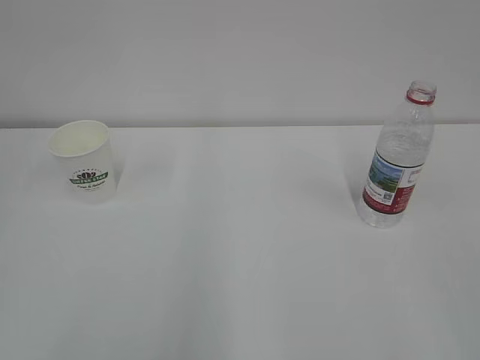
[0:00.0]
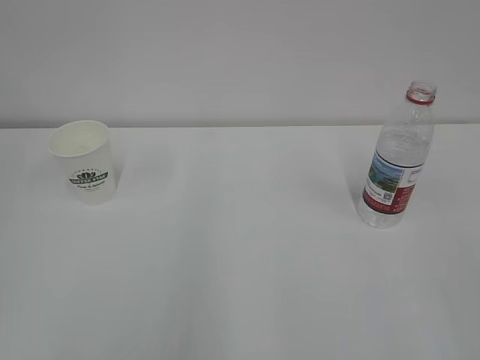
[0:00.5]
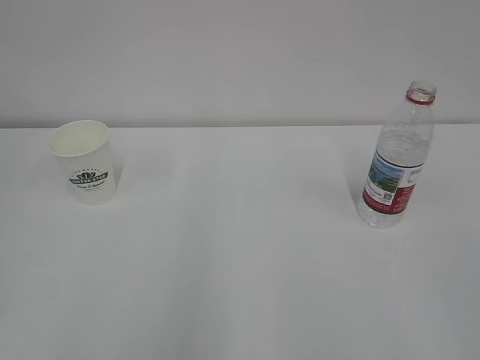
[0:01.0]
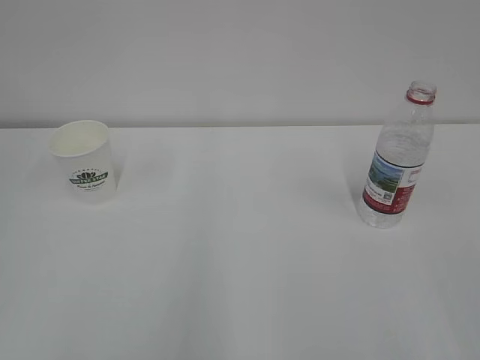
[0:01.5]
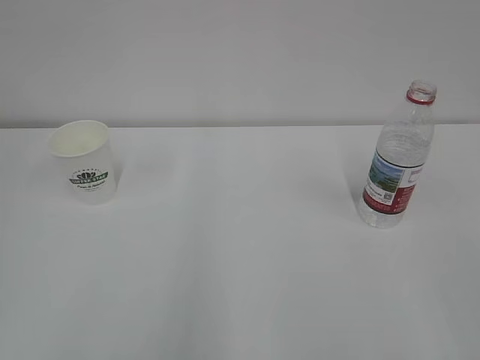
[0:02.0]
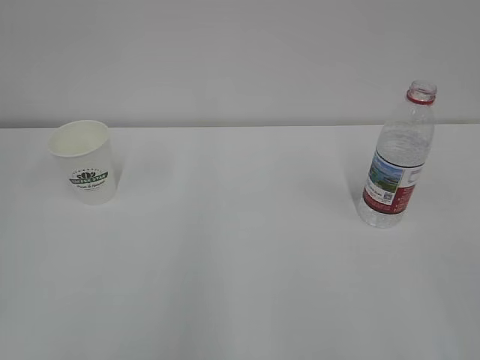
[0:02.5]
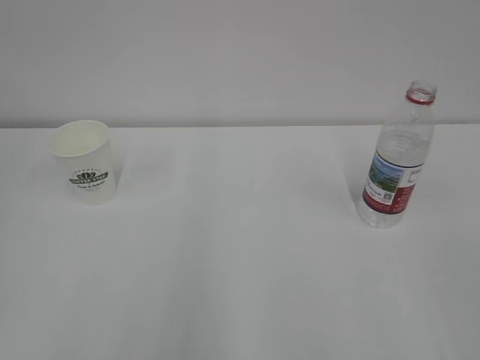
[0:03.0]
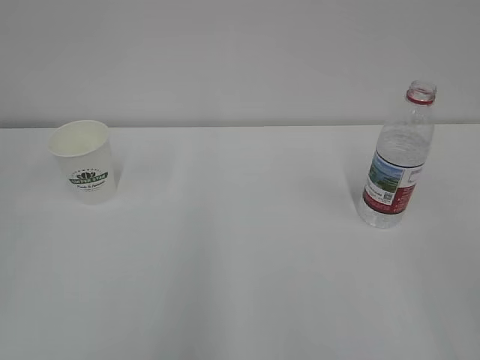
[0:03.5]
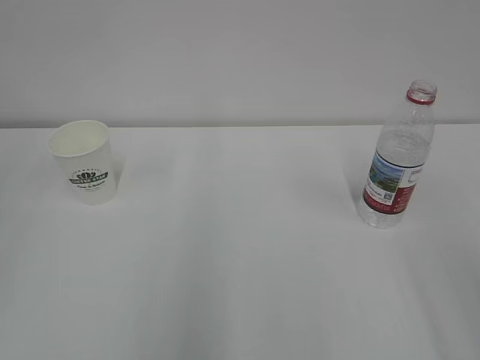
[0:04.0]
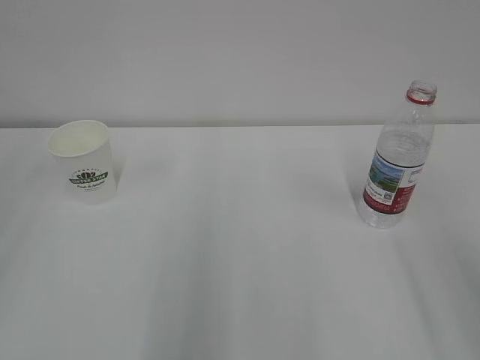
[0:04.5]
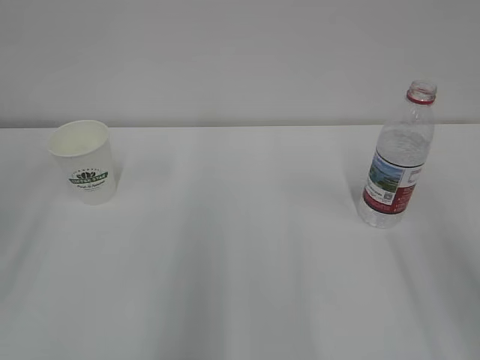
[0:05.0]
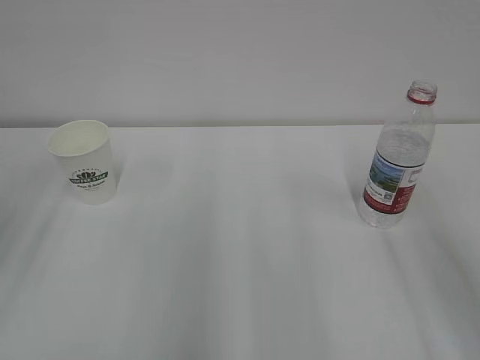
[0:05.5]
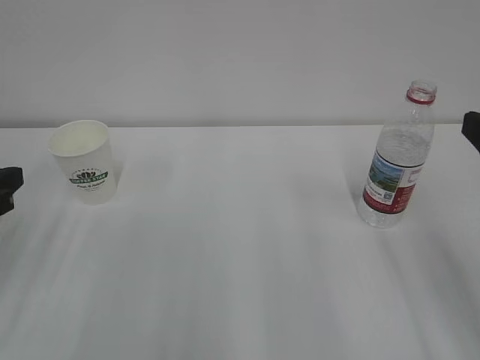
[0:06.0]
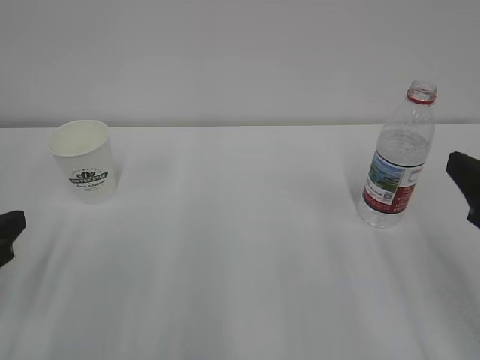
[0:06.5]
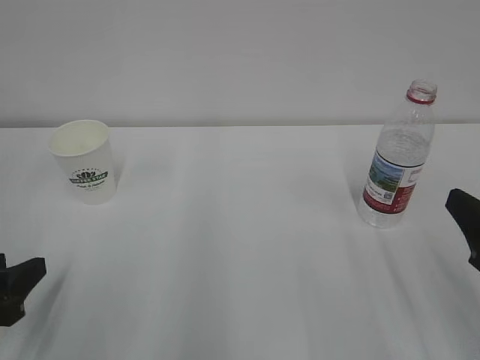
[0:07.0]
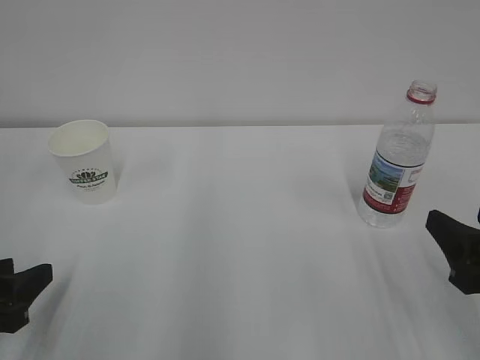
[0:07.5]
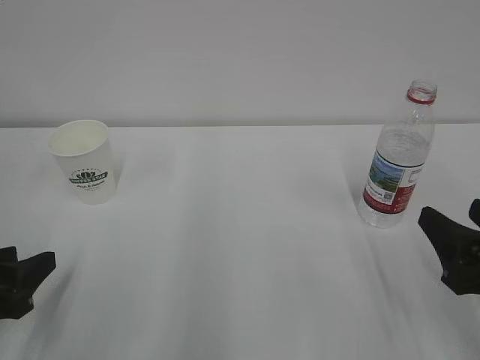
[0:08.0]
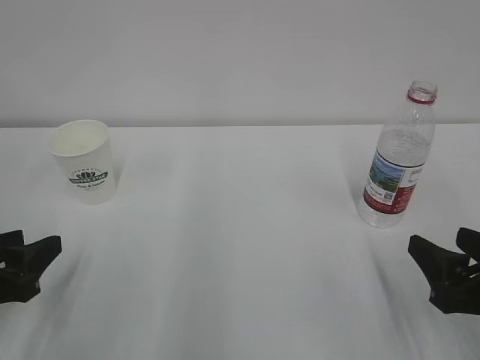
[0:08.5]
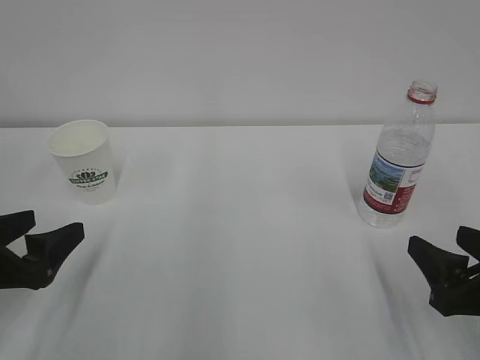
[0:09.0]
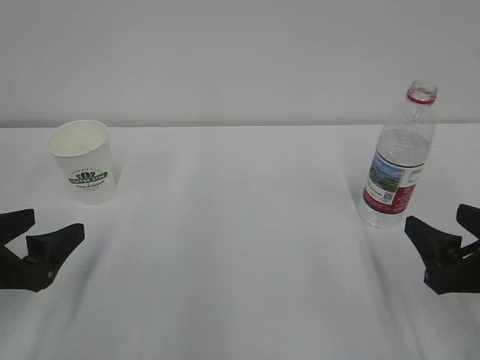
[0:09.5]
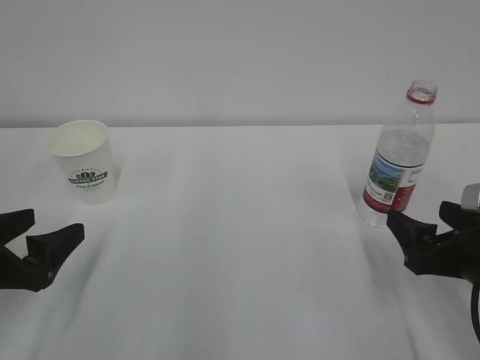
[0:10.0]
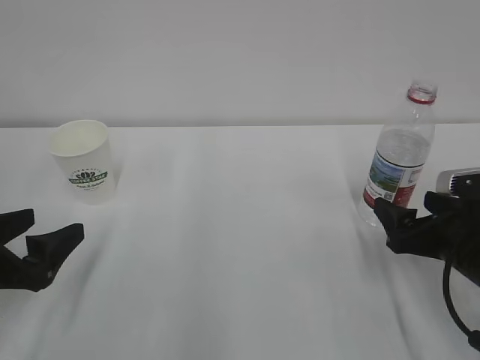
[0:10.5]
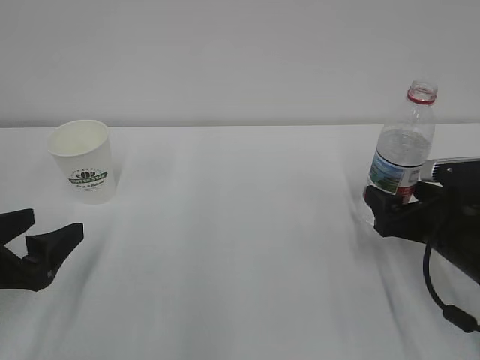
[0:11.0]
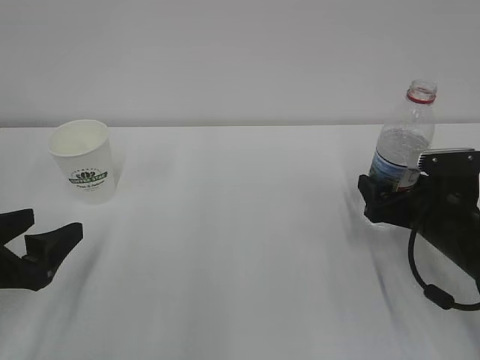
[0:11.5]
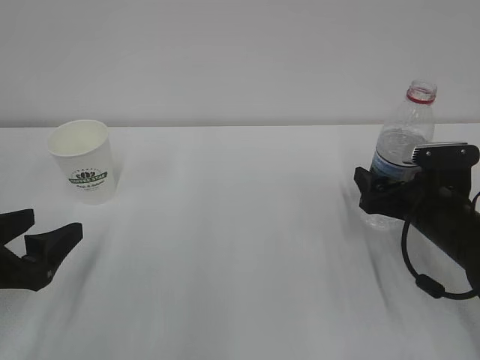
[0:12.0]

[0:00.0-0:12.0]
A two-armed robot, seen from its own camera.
6.0 to 8.0 s: The left gripper moves downward and backward, roughly 10 cm, while the right gripper moves downward, some 10 cm.
8.0 to 10.0 s: The right gripper changes place by about 5 cm, and opens. Meanwhile the left gripper opens its fingers.
10.0 to 12.0 s: The right gripper is displaced forward by some 10 cm.

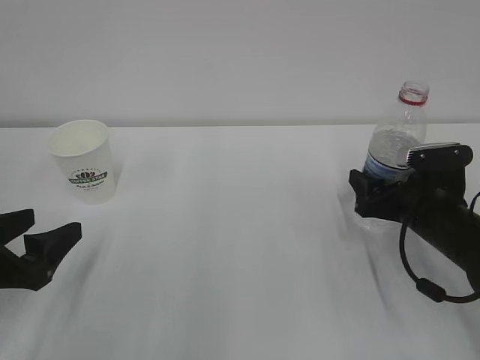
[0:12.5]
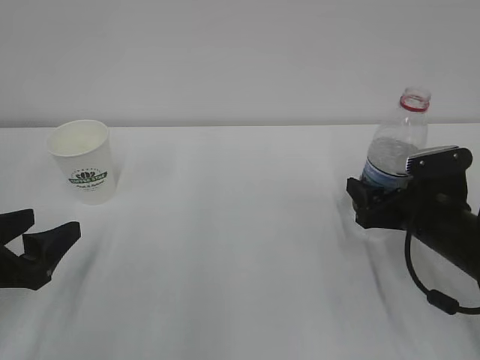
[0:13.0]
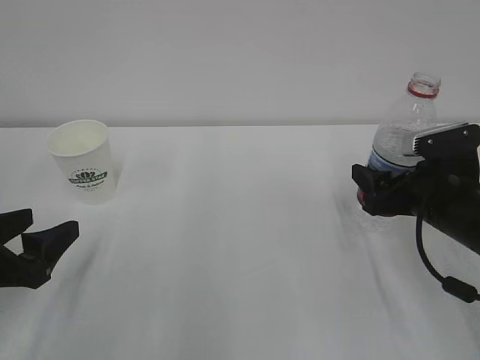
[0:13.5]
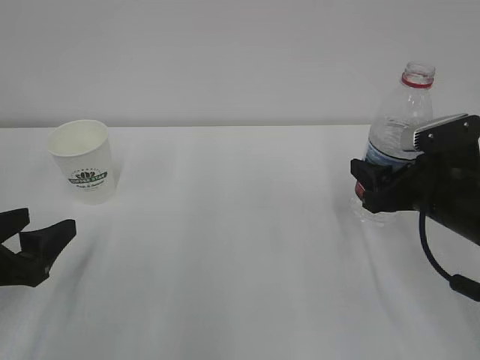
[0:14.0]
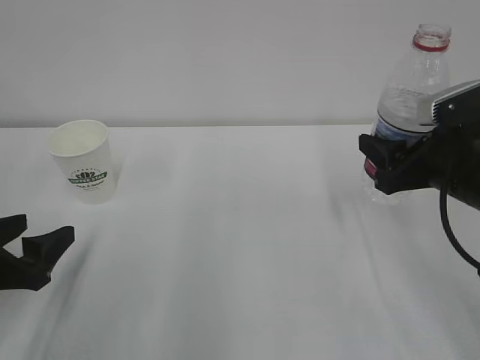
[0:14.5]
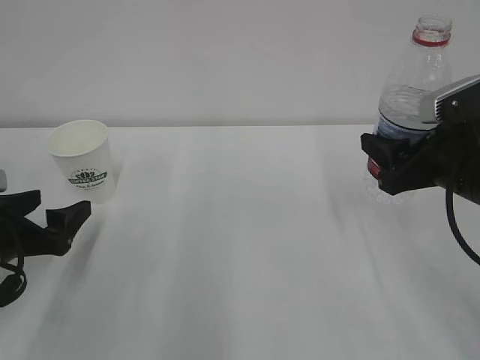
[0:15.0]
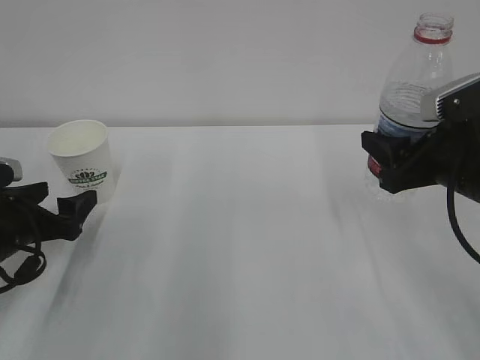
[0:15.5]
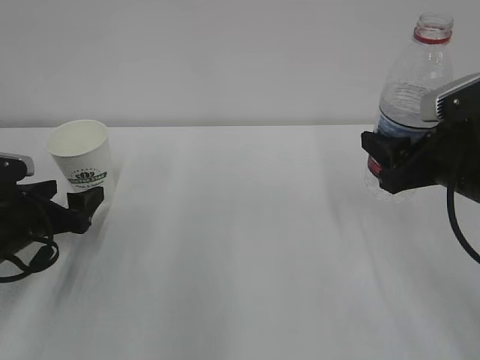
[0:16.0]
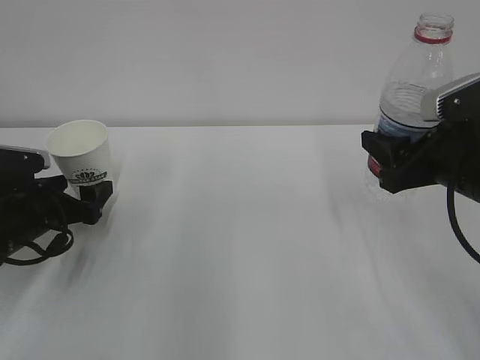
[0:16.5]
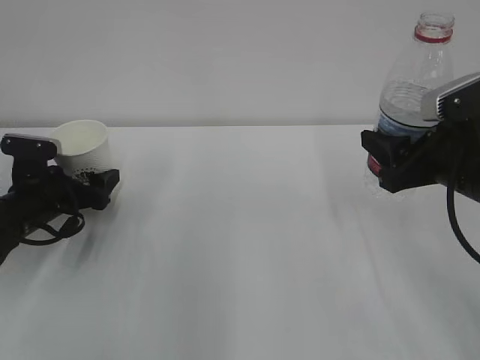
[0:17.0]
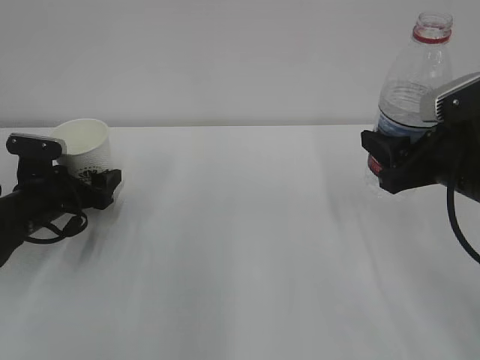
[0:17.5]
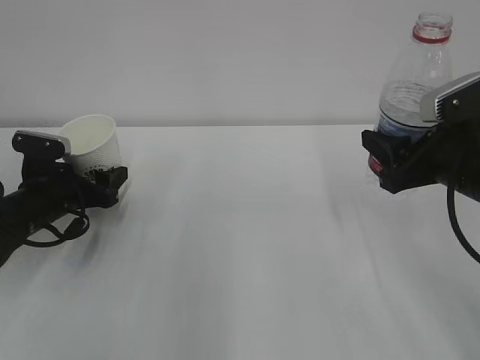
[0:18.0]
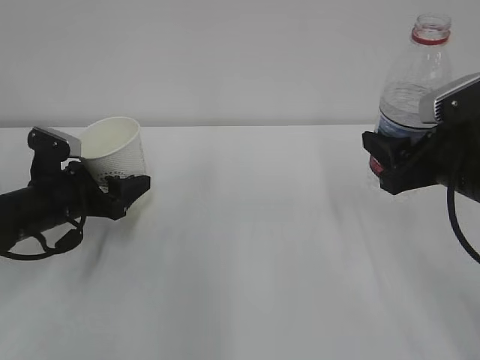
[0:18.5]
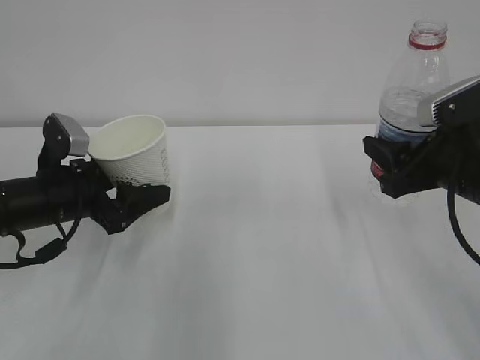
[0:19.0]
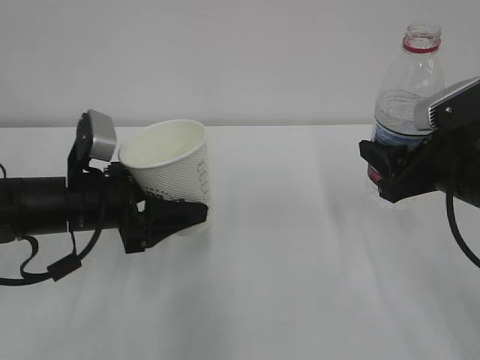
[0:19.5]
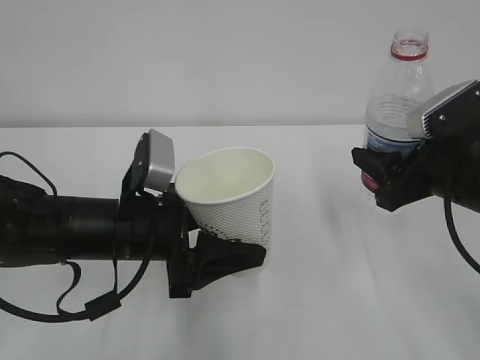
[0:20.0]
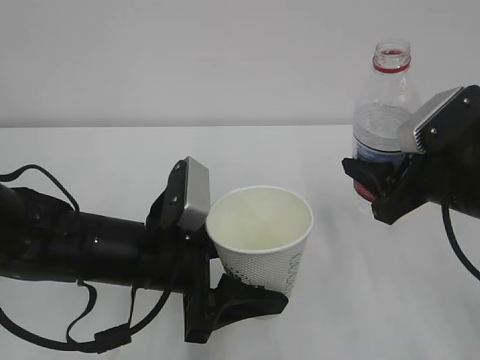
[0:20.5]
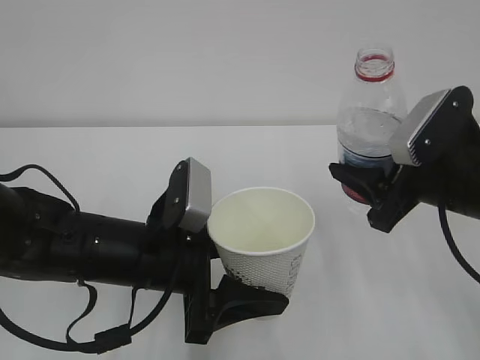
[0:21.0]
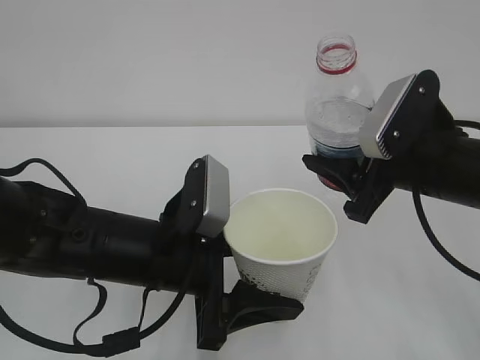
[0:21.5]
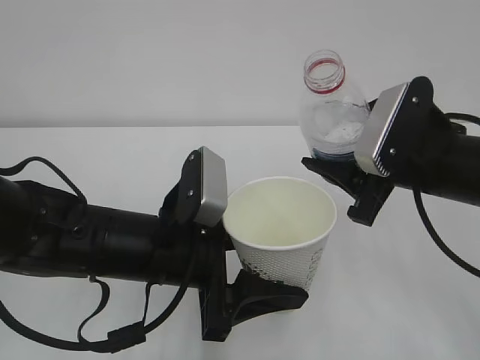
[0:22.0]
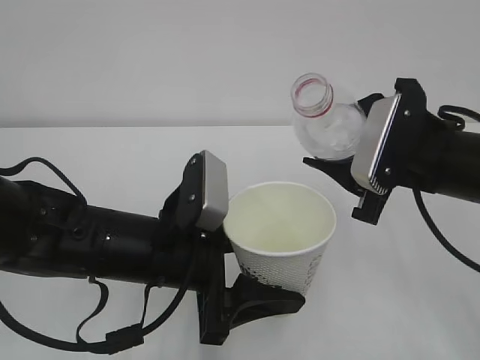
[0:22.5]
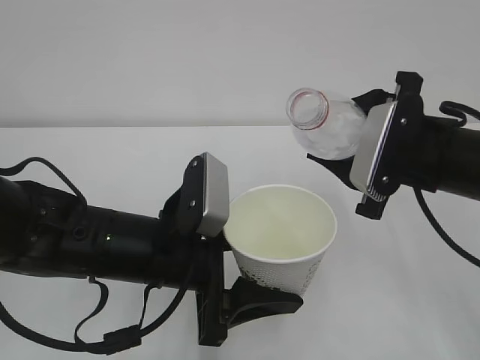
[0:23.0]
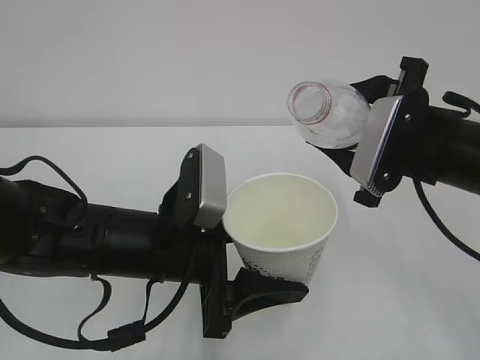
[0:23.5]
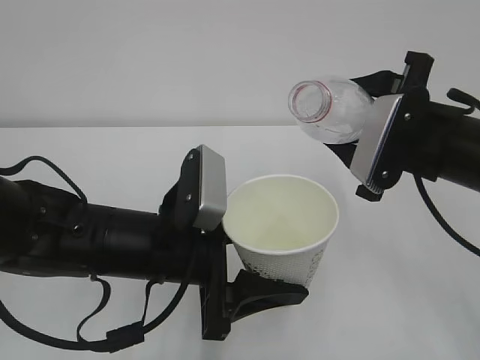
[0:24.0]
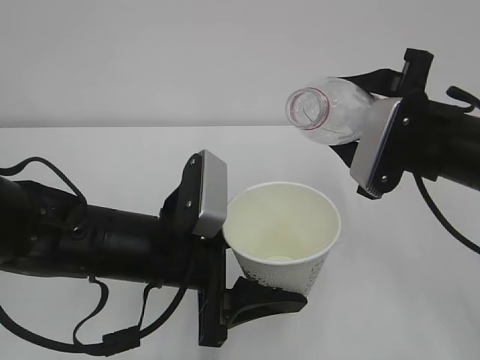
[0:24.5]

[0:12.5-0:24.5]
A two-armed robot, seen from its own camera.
12.5 to 14.5 s: The right gripper is displaced upward by some 10 cm, and closes its fingers.
14.5 to 16.5 s: The left gripper shifts some 10 cm forward, and opens its fingers.
16.5 to 18.5 s: The left gripper closes its fingers.
18.5 to 20.5 s: The left gripper goes about 20 cm to the right and backward.
22.5 to 24.5 s: The grippers move only a little.

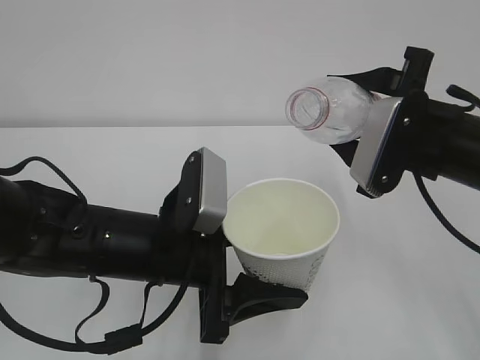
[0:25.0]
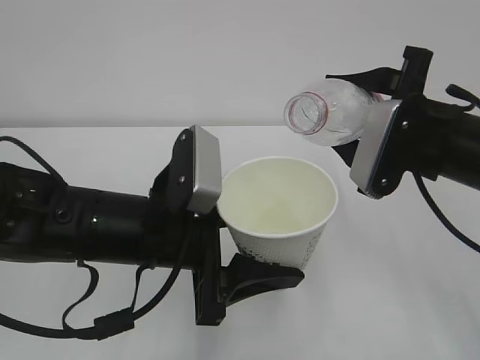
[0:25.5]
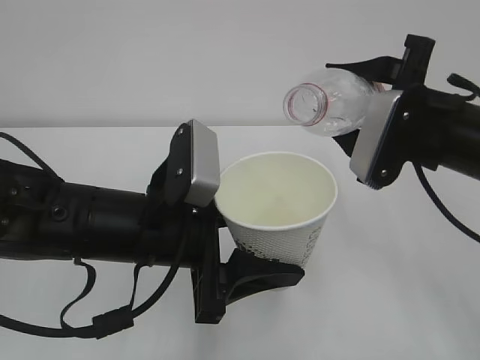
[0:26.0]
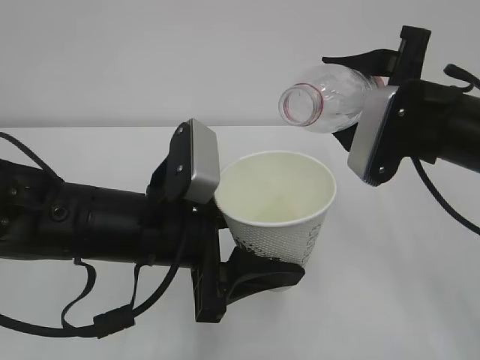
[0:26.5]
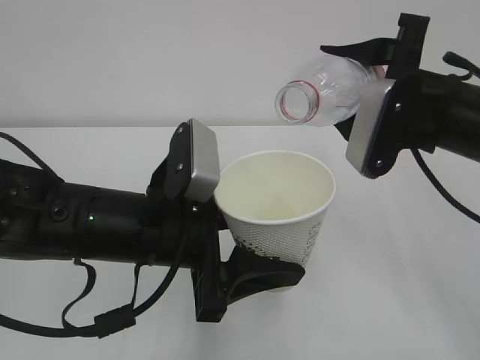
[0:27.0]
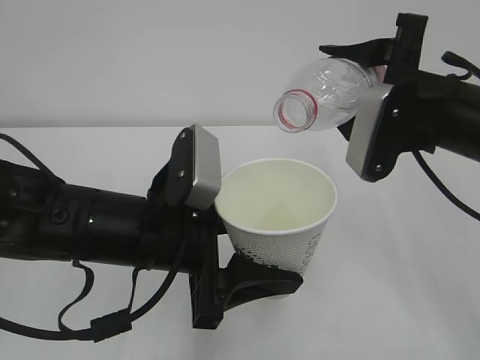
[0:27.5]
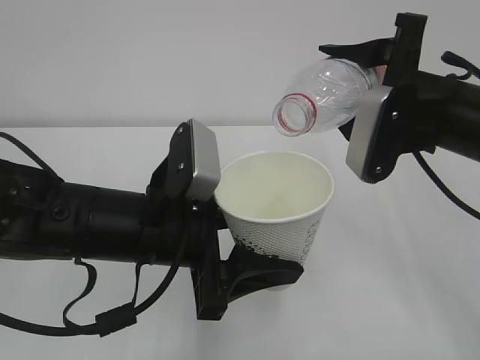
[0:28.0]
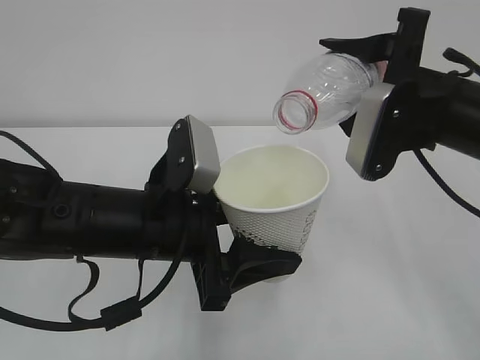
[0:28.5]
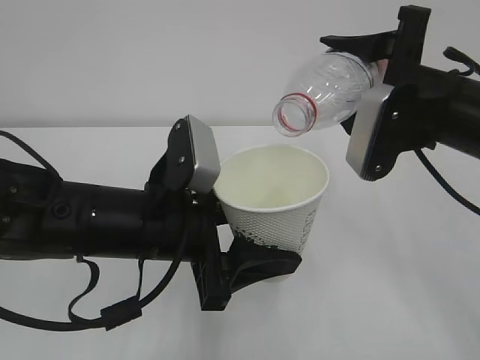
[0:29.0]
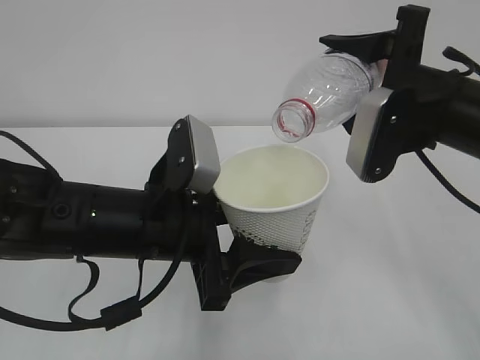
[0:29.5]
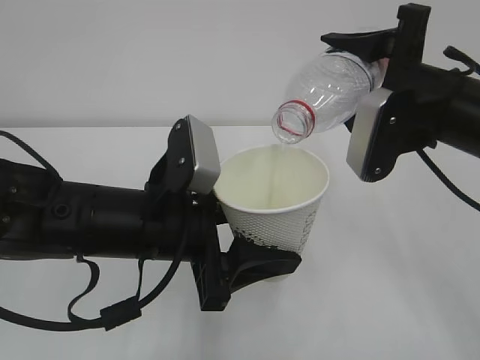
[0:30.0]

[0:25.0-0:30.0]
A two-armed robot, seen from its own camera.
27.5 to 30.0 s: The grippers move only a little.
